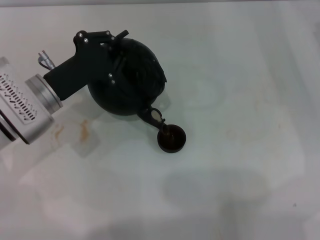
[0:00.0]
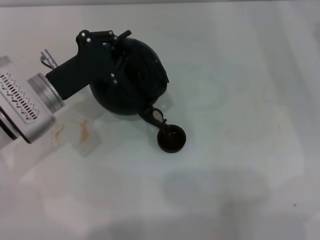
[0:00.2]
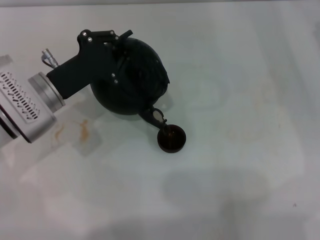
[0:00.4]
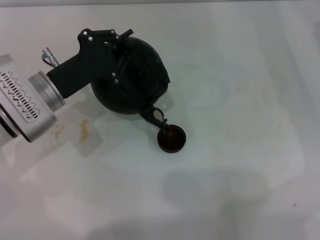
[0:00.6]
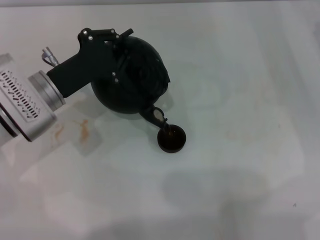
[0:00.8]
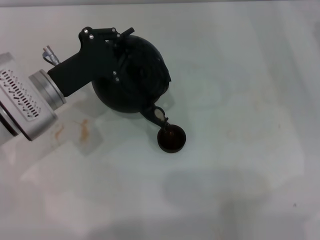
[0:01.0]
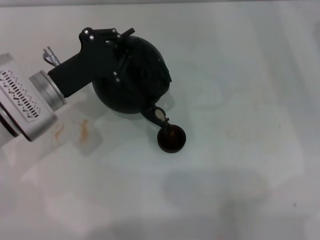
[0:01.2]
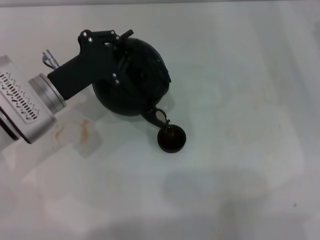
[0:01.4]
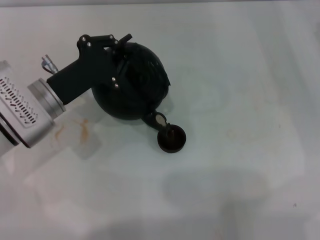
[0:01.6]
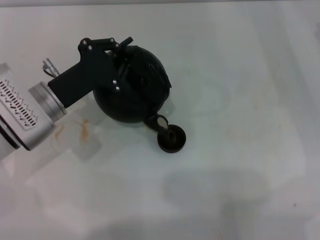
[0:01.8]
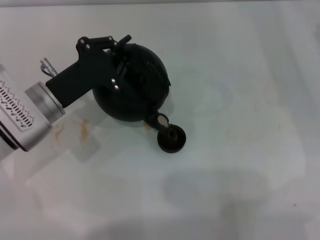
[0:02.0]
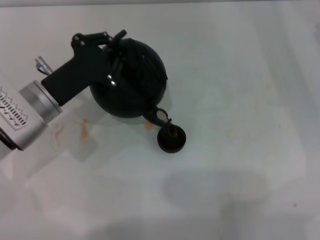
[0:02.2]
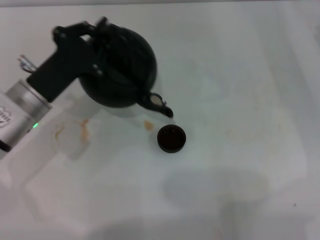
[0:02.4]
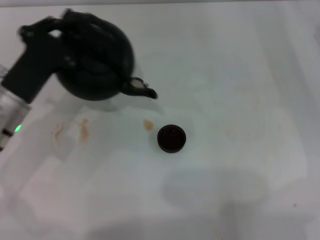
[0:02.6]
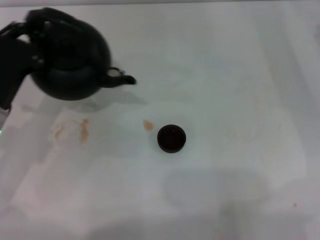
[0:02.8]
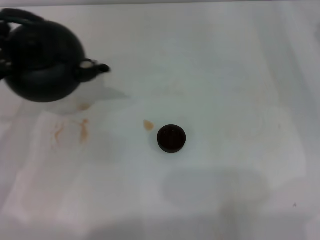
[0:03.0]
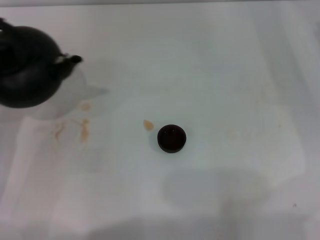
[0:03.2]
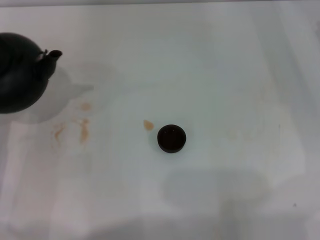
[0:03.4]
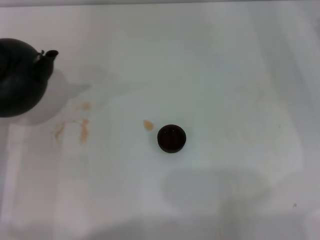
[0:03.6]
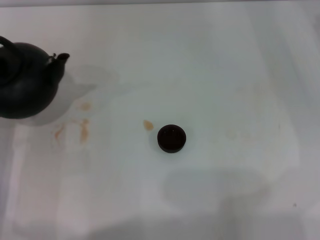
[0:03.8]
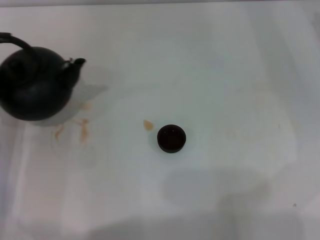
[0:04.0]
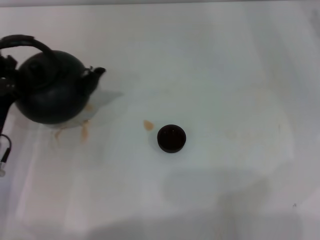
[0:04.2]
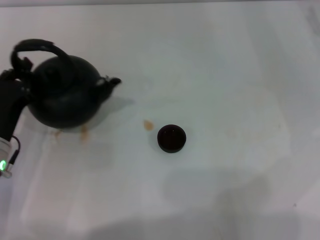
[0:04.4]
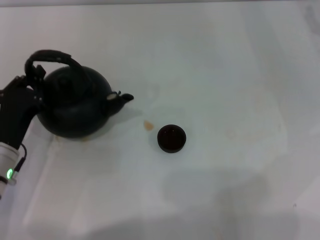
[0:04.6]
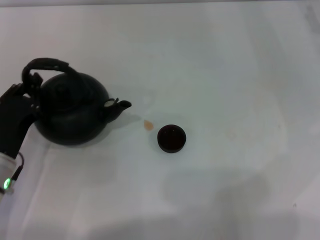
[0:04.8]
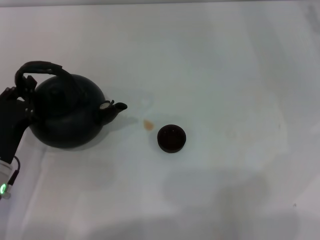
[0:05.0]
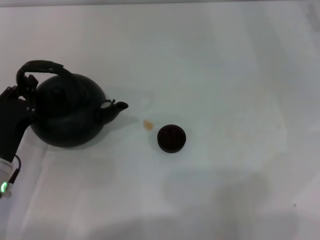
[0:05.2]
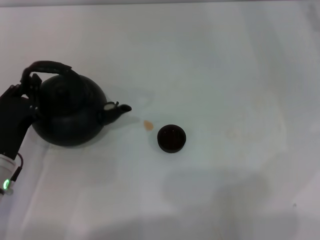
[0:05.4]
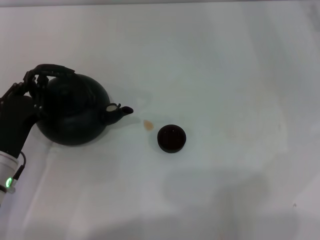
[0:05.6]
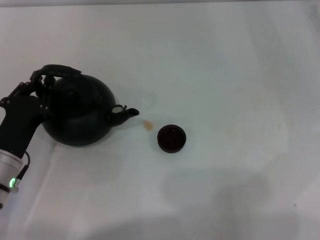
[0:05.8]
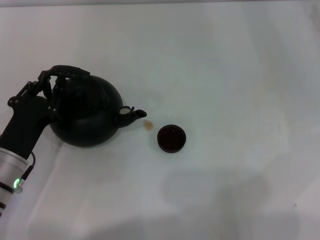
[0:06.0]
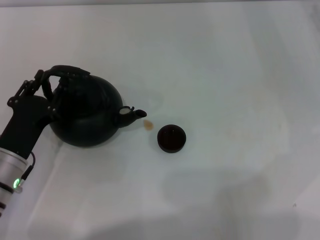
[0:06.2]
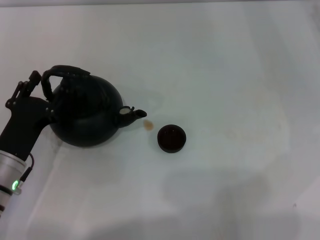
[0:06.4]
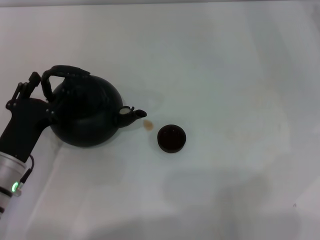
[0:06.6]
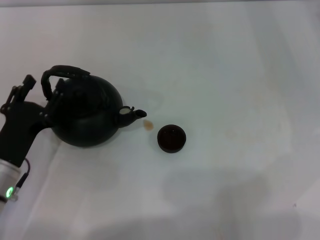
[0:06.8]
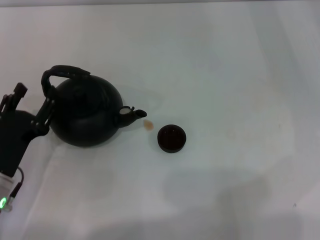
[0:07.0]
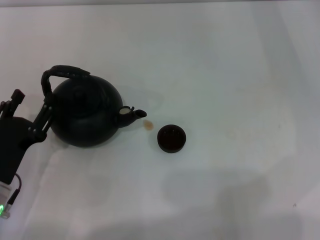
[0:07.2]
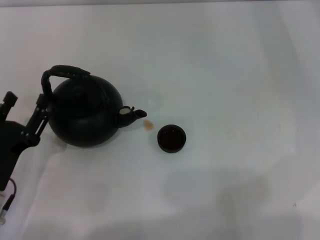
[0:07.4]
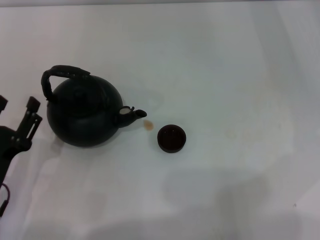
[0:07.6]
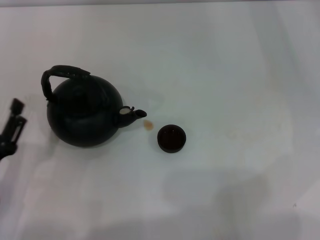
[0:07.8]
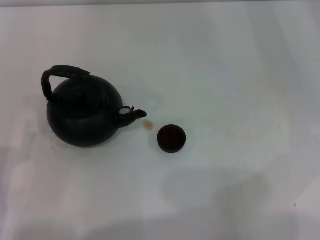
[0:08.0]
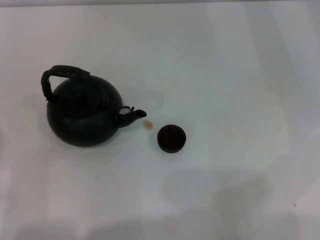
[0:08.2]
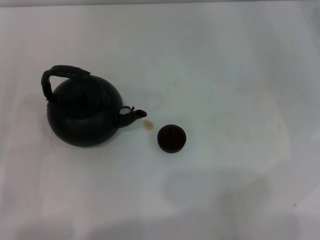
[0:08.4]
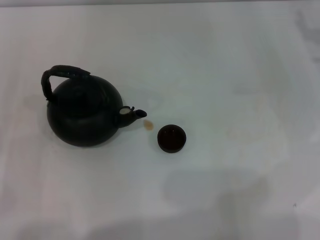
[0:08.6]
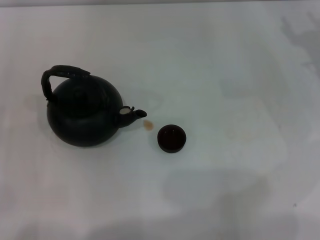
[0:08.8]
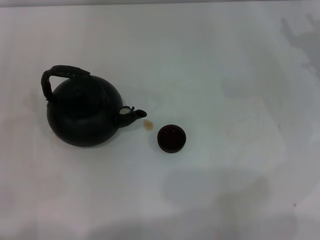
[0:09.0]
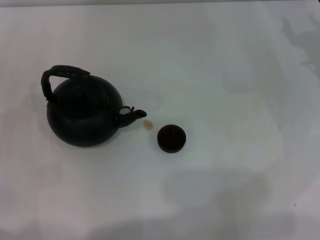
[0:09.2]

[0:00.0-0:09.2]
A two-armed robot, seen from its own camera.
Task of the whole recording: Grasp the handle of the teapot with one hand and pour tea into the teacup.
Step, 0:00.0 to 0:02.4: Pour tea into the teacup with the left gripper.
Step, 0:02.6 to 0:06.6: Put down the teapot with the left gripper.
0:00.0 to 0:01.6: The two grippers keep their place.
0:01.6 to 0:03.0: The left gripper moves to the left and backward, some 10 cm.
0:03.0 to 0:04.6: The right gripper changes place by approximately 5 cm. Meanwhile the left gripper shifts by about 5 cm.
0:04.6 to 0:06.2: The left gripper opens up.
0:06.2 to 0:07.6: The left gripper moves backward, about 5 cm, and opens its fingers.
0:07.6 to 0:09.2: The right gripper goes some 5 cm to the left; the left gripper is displaced to the left and forward by about 10 cm.
